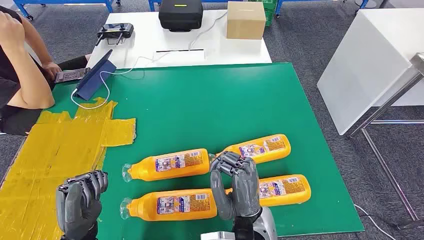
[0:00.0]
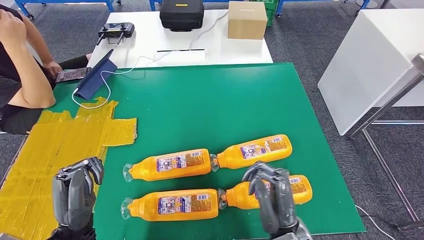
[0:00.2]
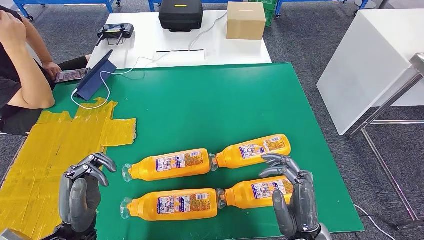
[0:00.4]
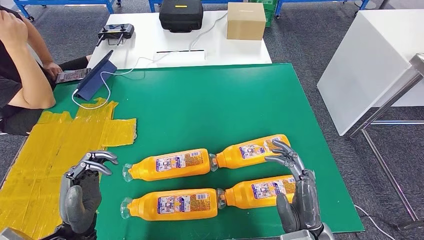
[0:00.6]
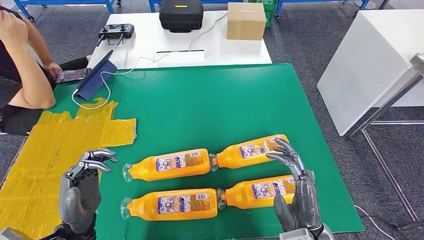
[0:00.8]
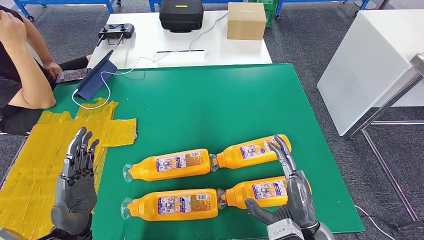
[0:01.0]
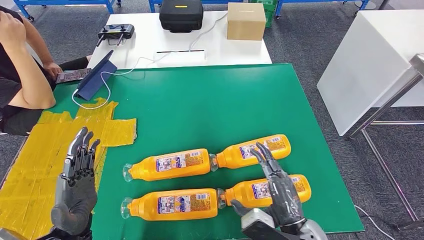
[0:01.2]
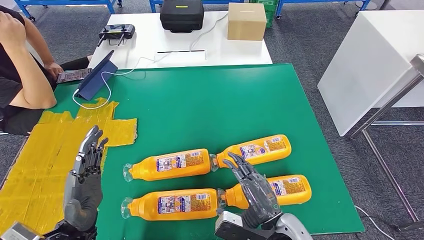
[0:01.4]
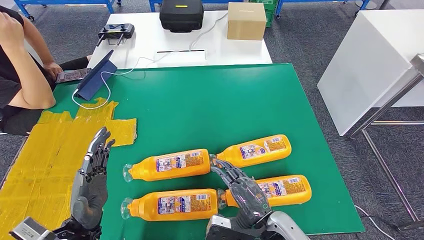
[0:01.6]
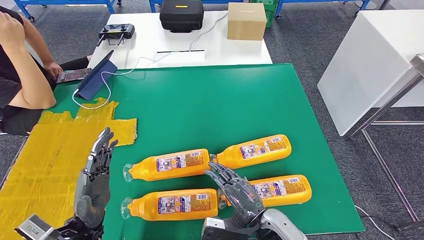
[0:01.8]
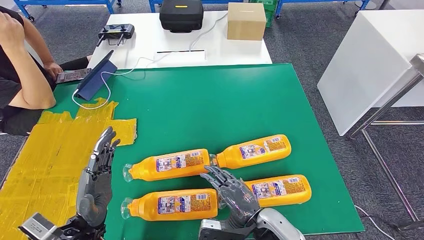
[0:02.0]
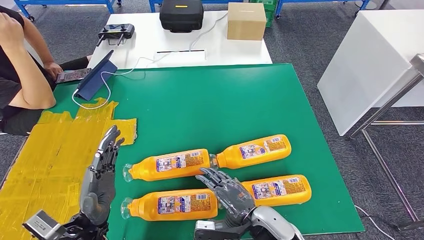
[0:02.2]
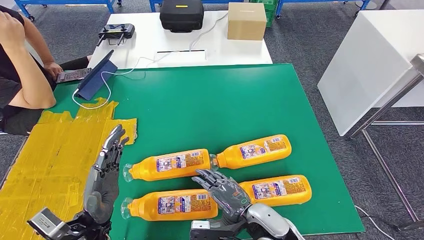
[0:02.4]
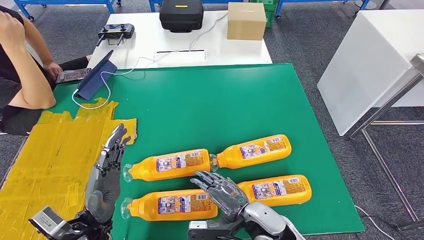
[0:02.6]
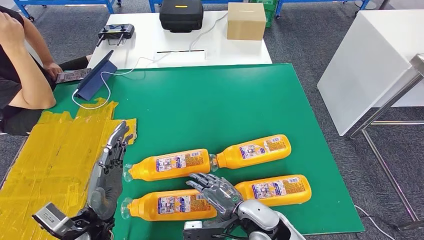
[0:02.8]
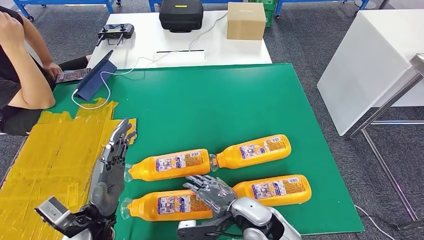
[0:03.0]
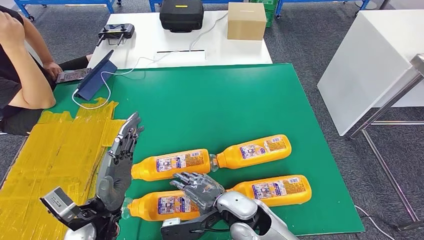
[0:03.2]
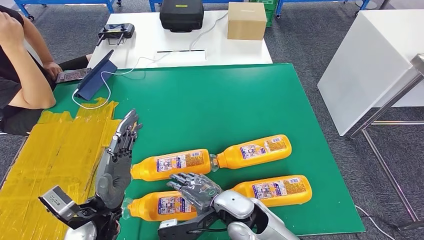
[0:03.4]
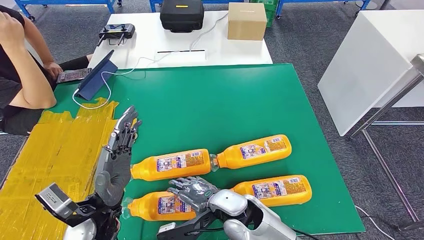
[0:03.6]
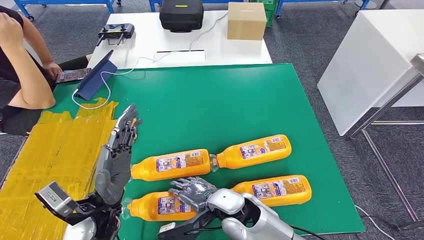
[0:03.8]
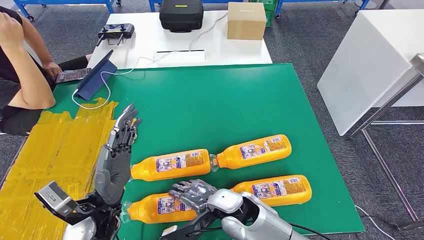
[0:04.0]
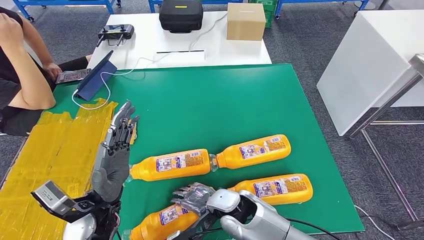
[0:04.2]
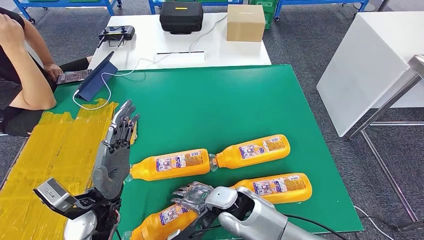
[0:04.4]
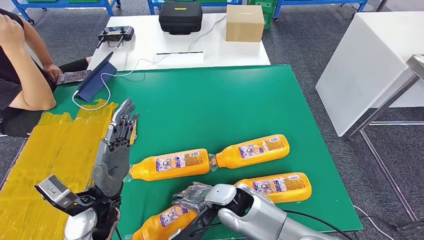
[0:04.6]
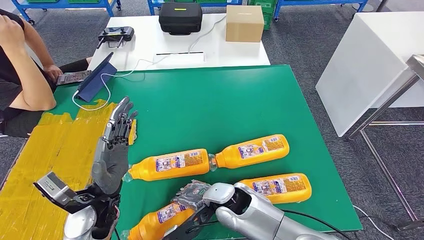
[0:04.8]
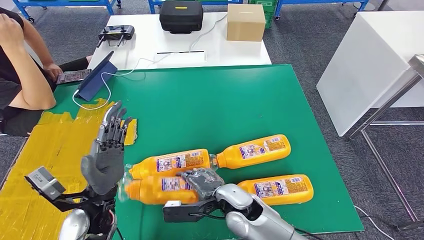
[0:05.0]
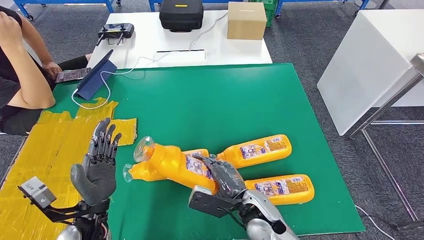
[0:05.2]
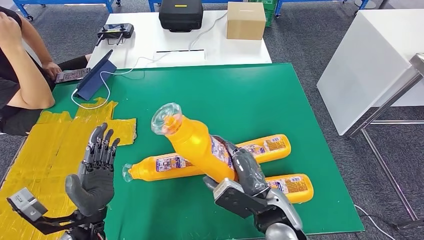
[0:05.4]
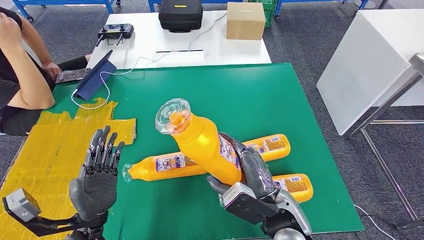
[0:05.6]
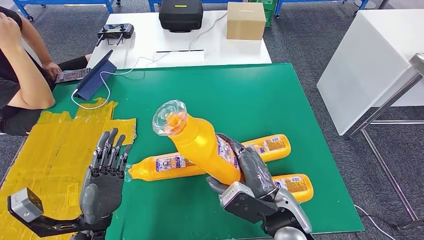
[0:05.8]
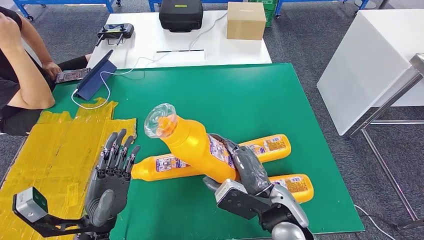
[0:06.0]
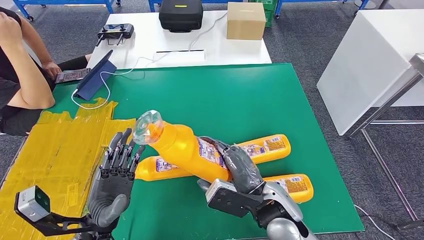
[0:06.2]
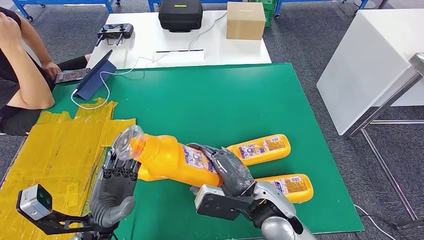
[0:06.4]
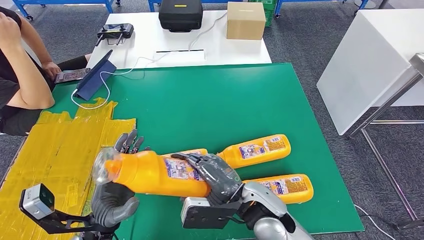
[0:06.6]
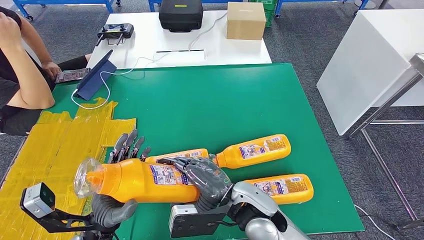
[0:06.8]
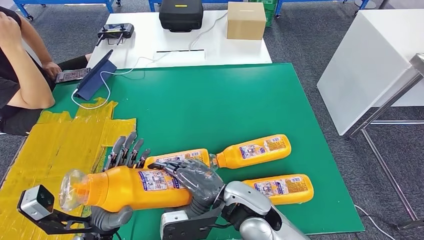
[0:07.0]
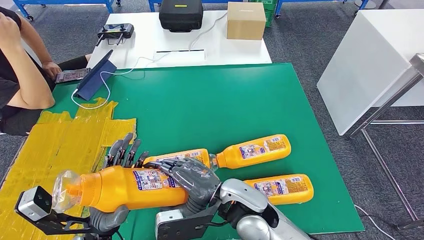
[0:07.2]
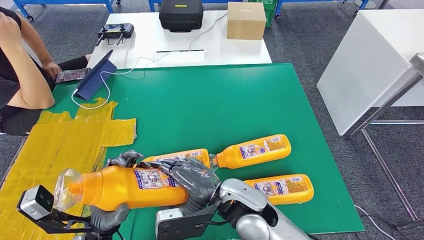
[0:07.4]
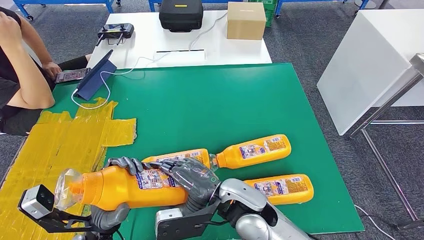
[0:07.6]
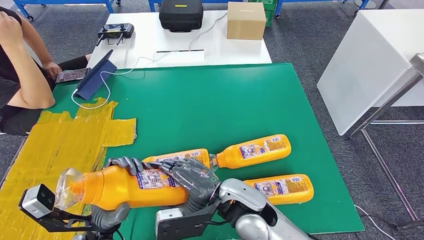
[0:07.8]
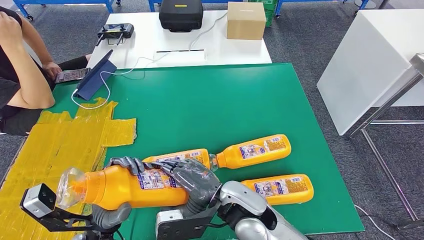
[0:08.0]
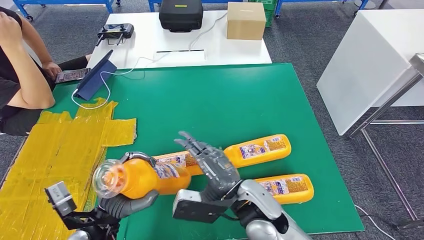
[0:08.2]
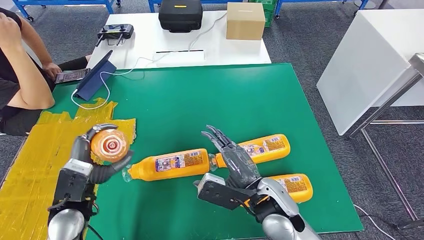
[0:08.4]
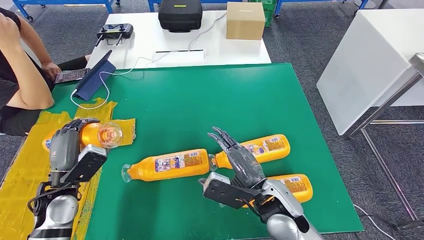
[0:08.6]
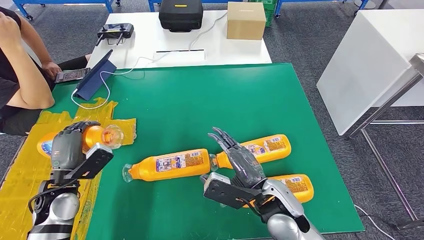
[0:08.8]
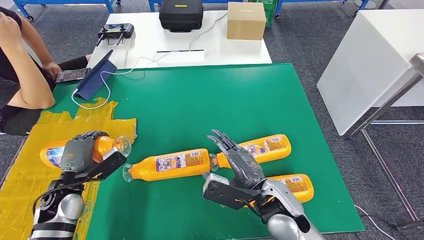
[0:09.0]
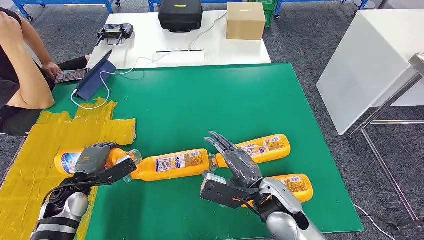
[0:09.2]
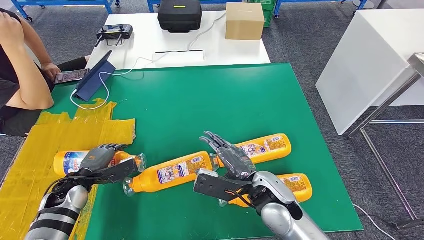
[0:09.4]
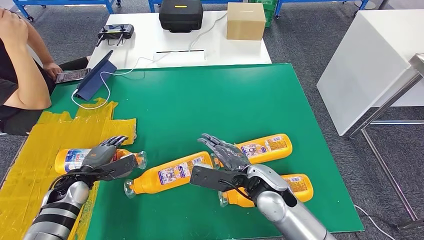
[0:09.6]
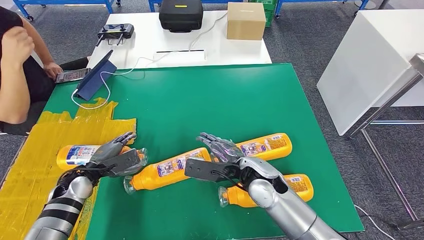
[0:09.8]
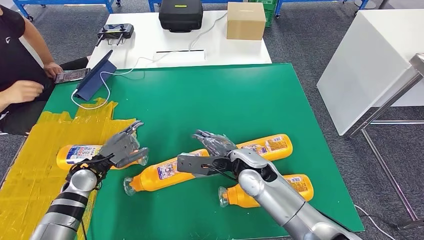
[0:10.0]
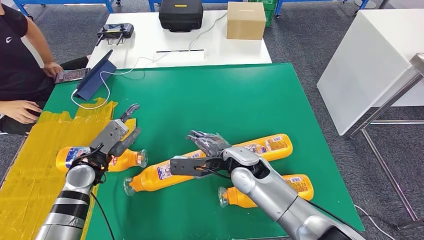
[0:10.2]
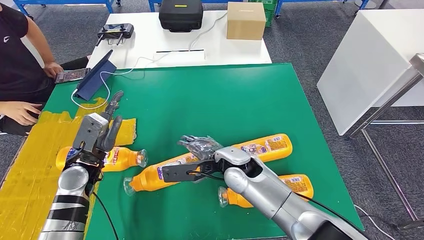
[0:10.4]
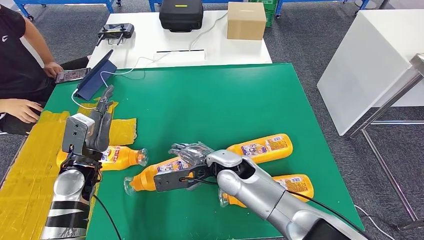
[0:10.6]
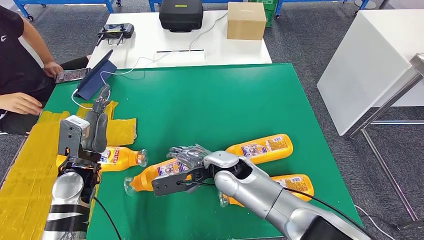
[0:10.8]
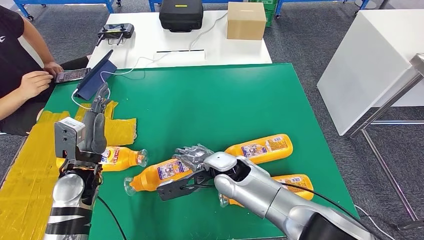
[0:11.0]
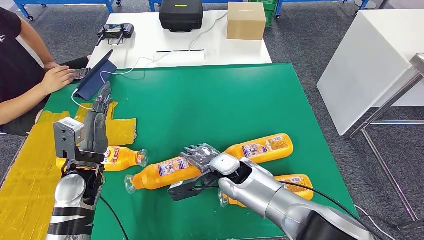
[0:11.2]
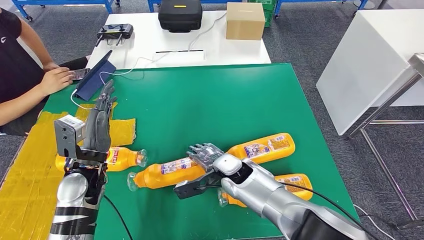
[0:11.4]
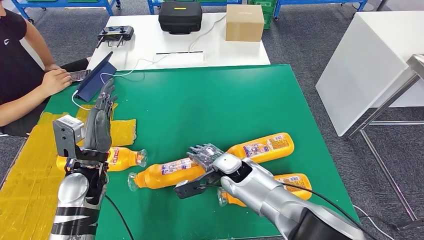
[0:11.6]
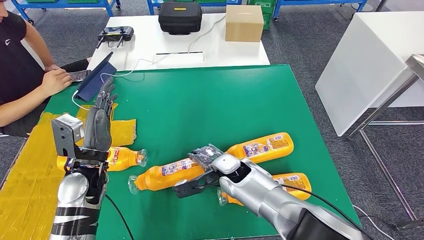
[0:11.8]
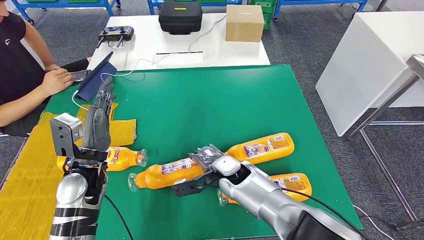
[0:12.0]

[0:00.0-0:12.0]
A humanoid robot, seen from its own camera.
Step, 0:00.0 to 0:04.8: Take the bottle from the table.
Step, 0:05.0 to 0:11.2: Flip the bottle to face forward.
0:01.6 to 0:03.0: The right hand moves to the left, about 5 cm.
0:03.0 to 0:04.4: The right hand ends up about 5 cm from where it was.
0:06.0 to 0:07.6: The right hand heads to the left, covering roughly 10 cm.
0:07.6 to 0:09.0: The left hand shifts about 15 cm to the left and forward. The right hand is displaced to the right by about 10 cm.

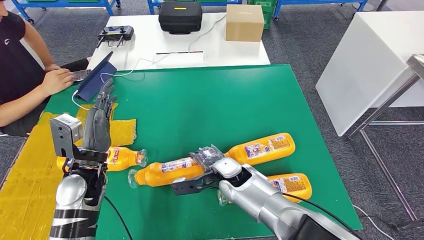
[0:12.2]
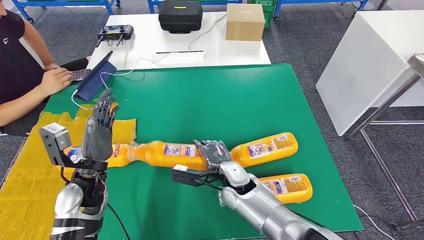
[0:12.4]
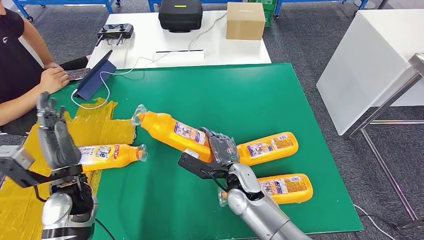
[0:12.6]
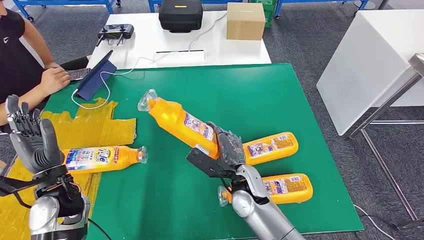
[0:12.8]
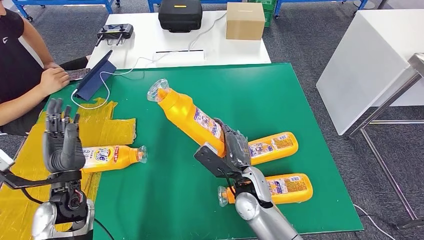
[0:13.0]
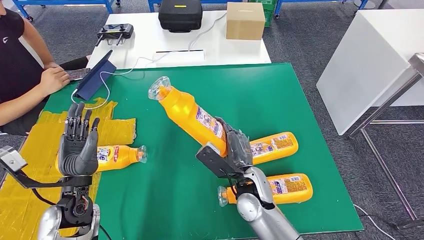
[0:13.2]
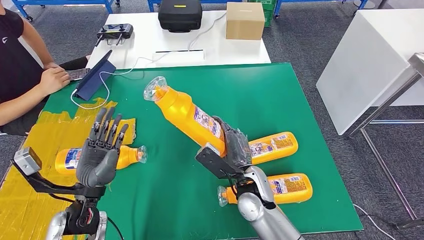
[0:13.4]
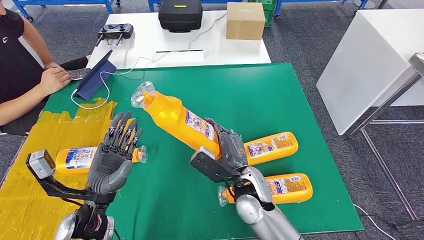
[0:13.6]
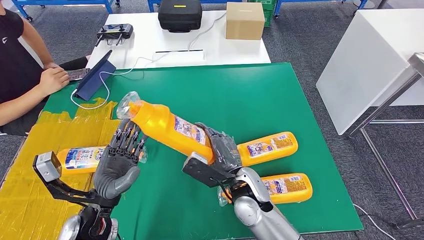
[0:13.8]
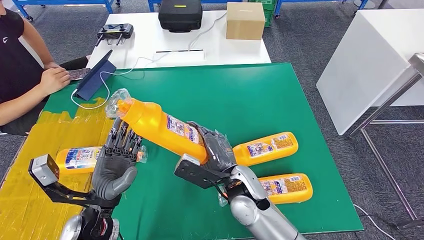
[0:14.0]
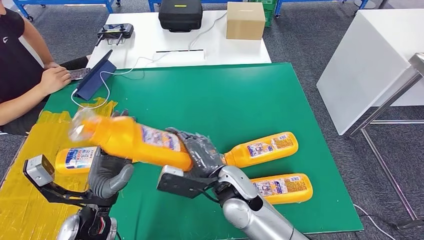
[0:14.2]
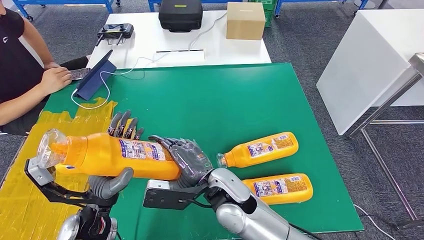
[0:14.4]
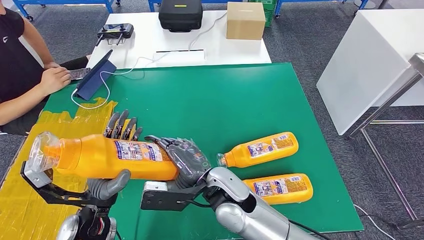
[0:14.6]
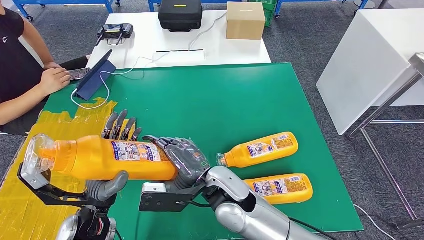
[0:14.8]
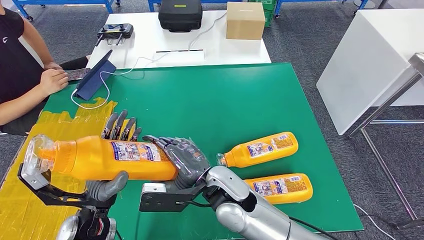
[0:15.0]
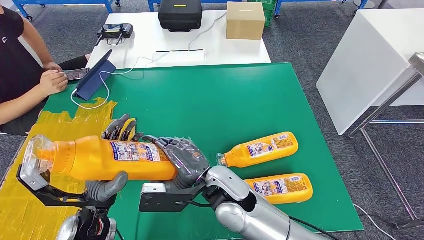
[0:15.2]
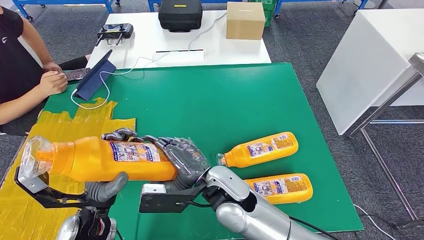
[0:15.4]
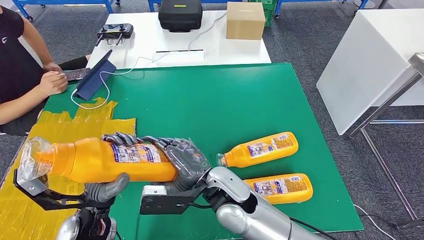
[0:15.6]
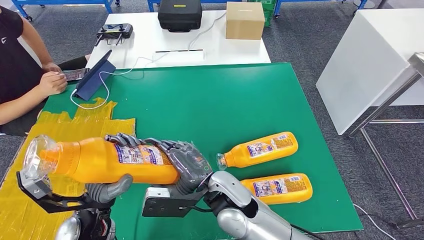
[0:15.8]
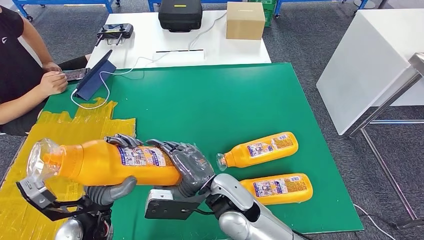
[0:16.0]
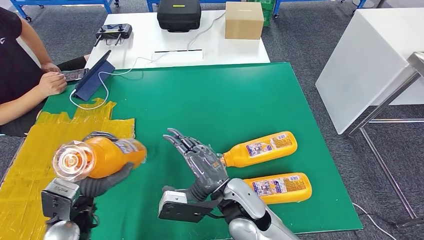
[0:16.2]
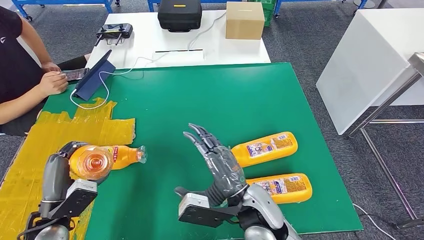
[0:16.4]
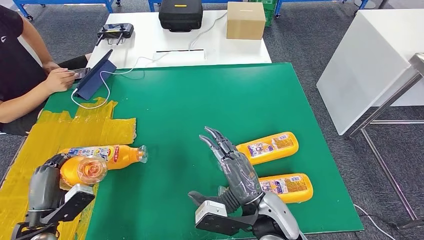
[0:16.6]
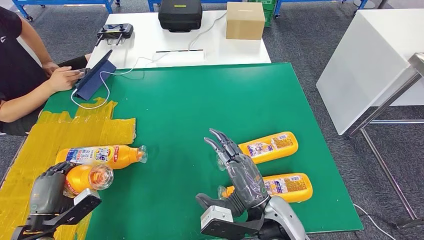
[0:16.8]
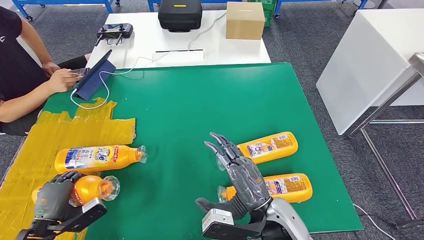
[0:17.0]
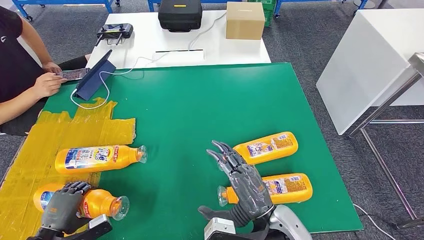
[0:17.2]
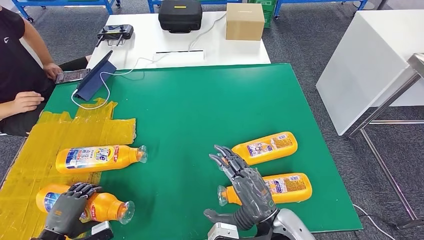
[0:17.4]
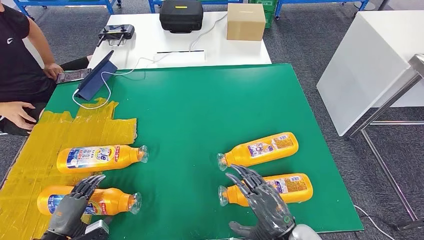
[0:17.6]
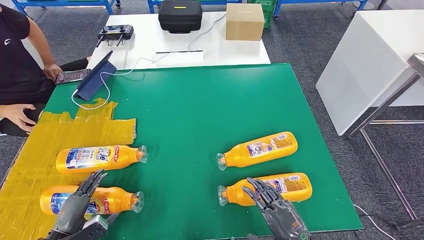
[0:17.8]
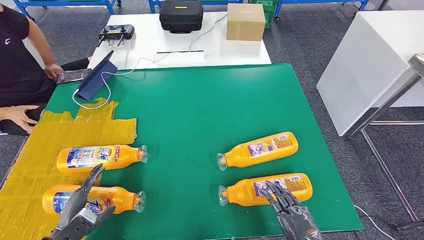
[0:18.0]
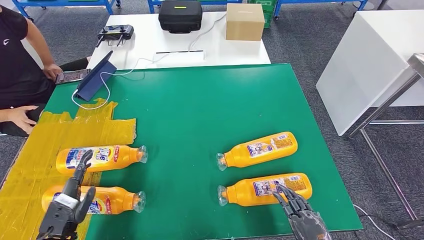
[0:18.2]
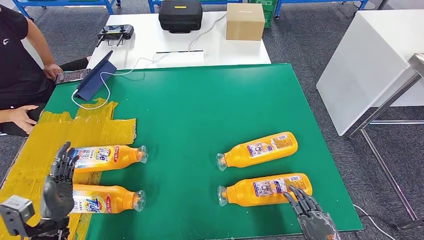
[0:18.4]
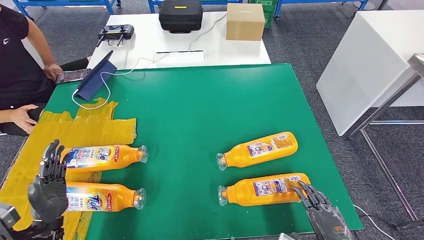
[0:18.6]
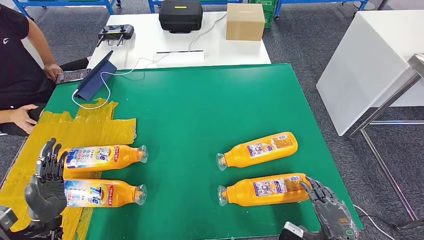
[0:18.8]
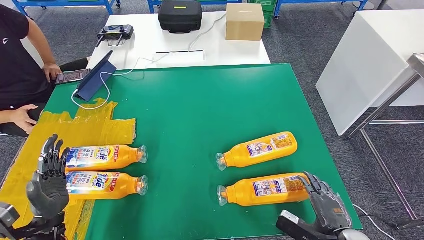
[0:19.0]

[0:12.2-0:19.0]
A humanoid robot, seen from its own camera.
Step, 0:12.2 to 0:14.4: Pick up the bottle from the table.
Step, 0:14.8 to 0:18.6: Flip the bottle to face forward.
0:13.6 to 0:15.0: The right hand goes roughly 10 cm to the left and upward.
0:17.6 to 0:19.0: The left hand shifts roughly 5 cm upward. Meanwhile the right hand heads to the right, covering roughly 15 cm.
